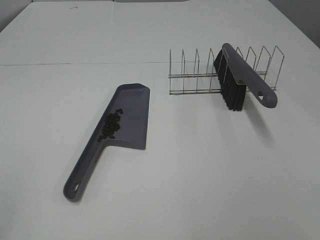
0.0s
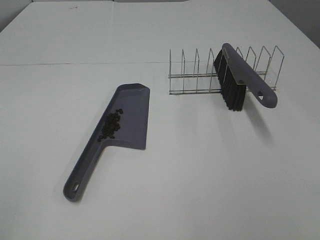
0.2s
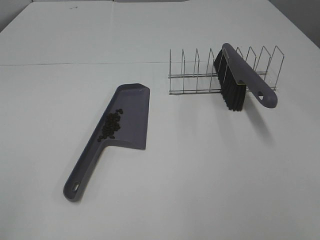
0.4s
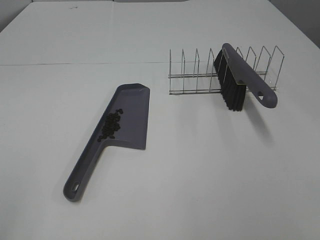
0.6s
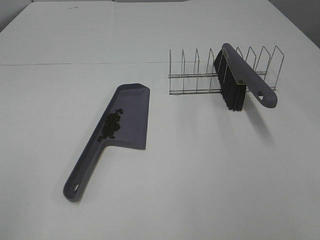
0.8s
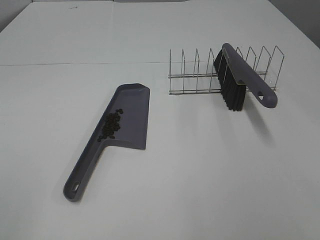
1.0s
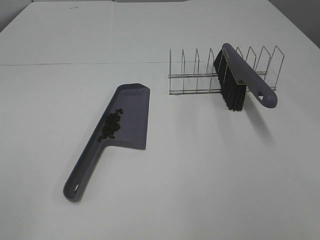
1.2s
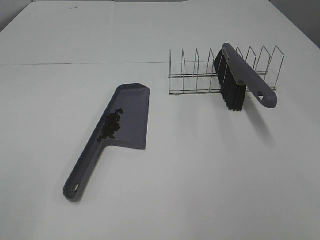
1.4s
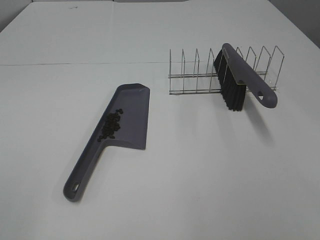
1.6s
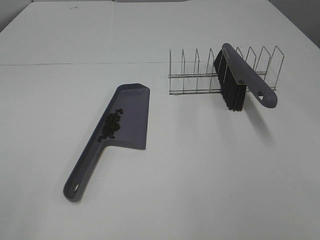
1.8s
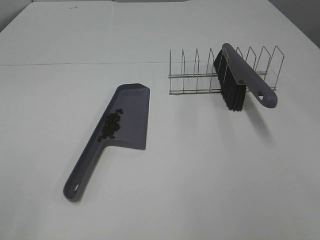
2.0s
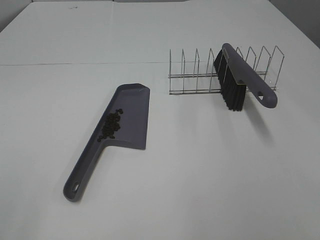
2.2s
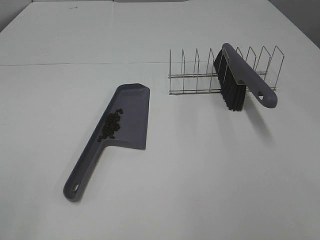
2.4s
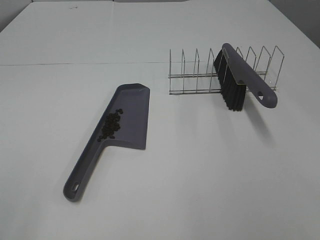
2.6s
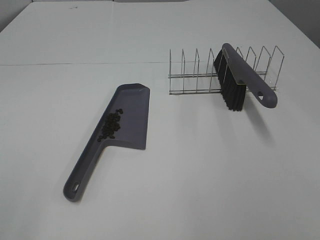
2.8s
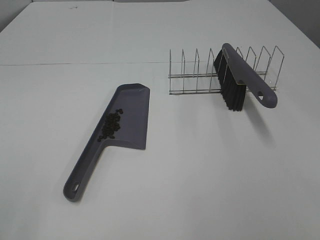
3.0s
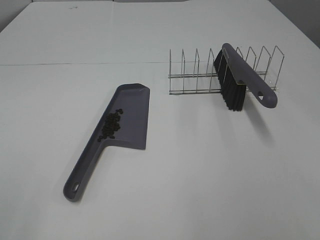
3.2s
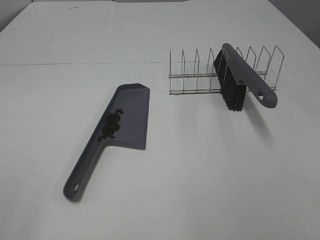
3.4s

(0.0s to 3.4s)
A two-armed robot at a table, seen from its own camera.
Task of the whole recording: Sweep Coffee Bean.
1.6s - 3.4s: Both grippers stay about where they are.

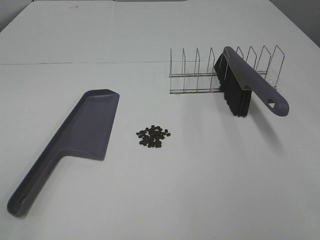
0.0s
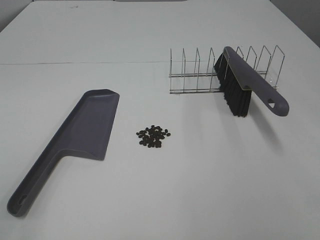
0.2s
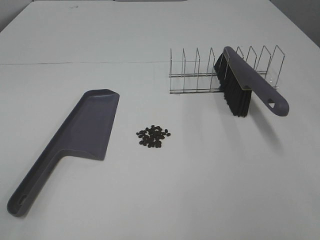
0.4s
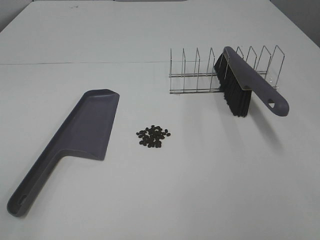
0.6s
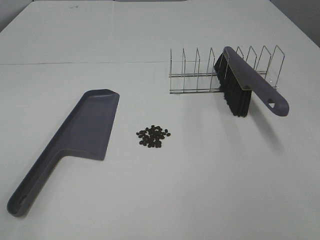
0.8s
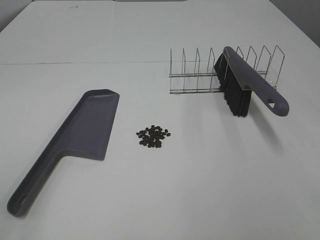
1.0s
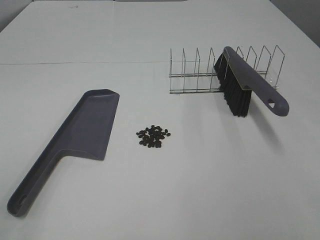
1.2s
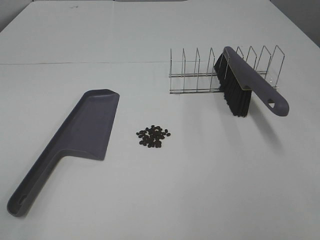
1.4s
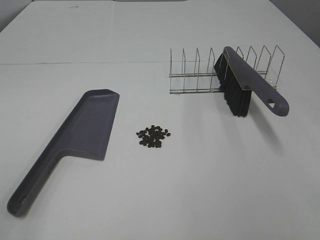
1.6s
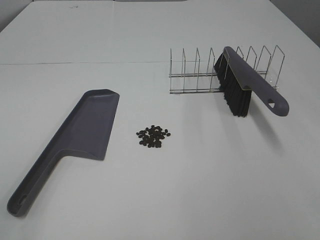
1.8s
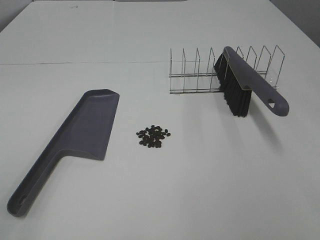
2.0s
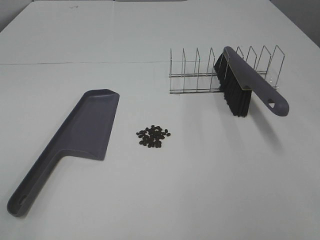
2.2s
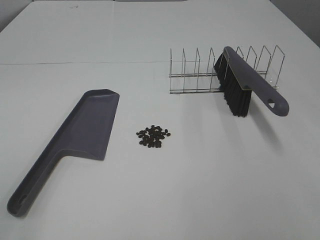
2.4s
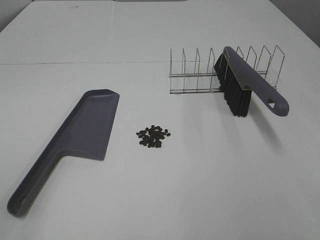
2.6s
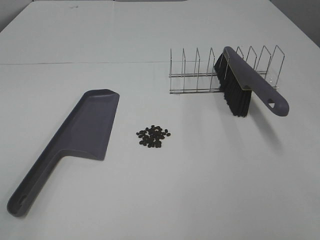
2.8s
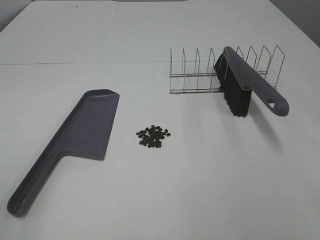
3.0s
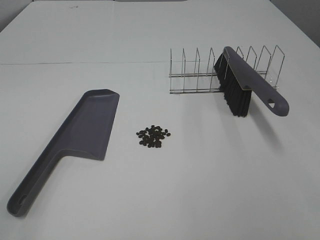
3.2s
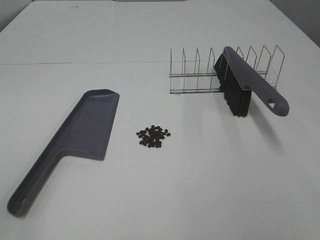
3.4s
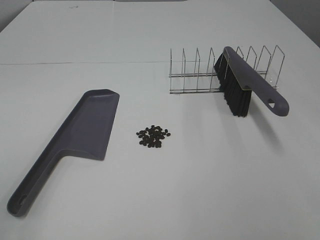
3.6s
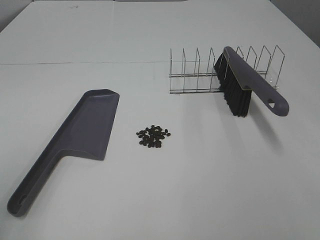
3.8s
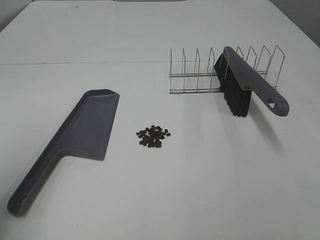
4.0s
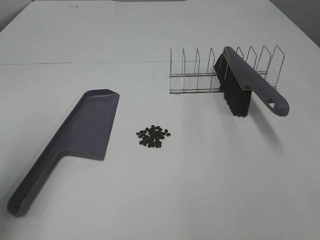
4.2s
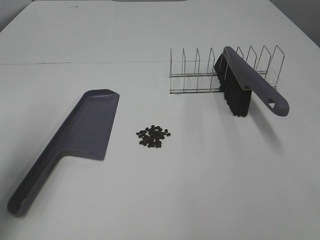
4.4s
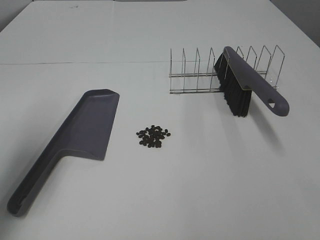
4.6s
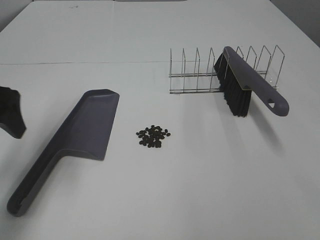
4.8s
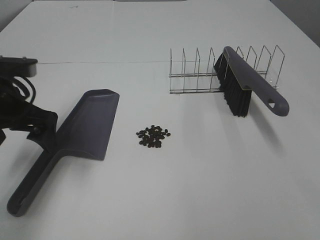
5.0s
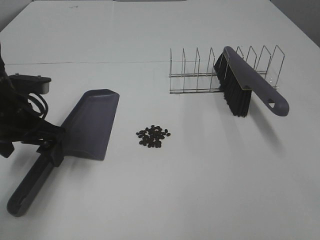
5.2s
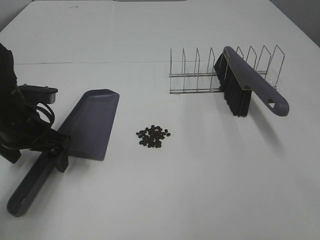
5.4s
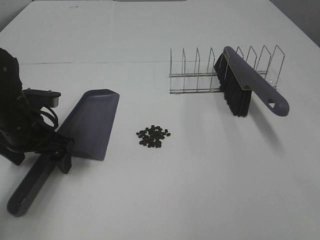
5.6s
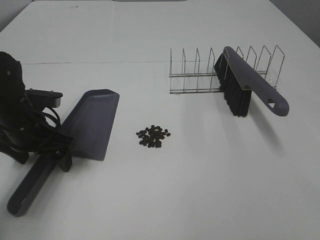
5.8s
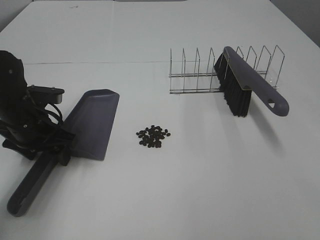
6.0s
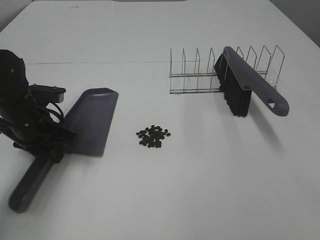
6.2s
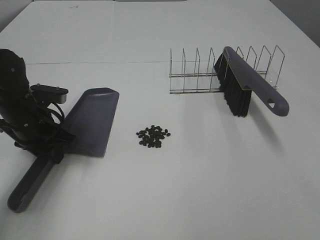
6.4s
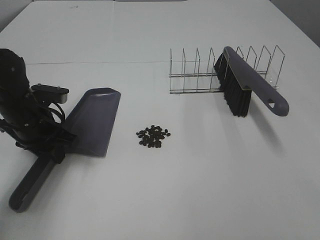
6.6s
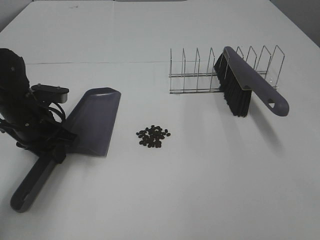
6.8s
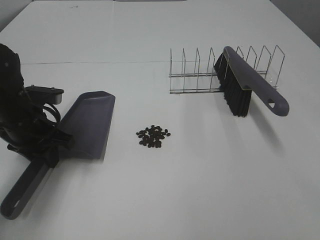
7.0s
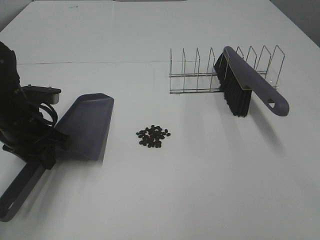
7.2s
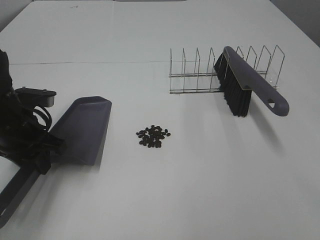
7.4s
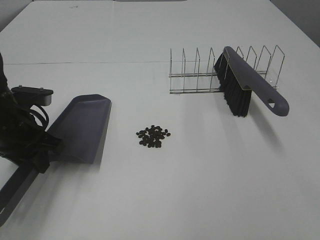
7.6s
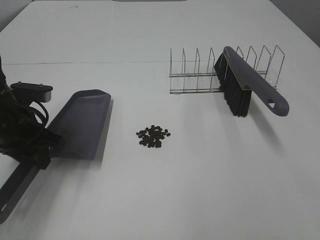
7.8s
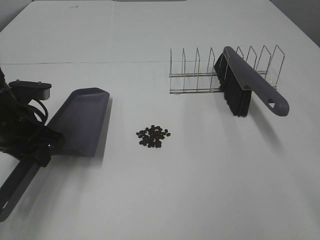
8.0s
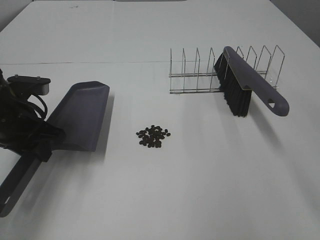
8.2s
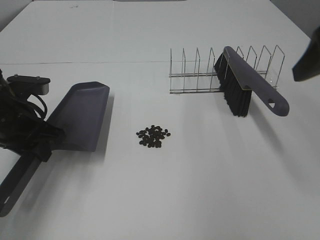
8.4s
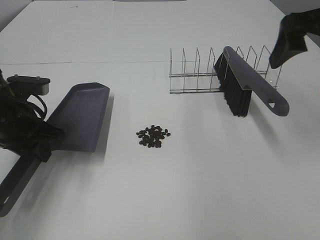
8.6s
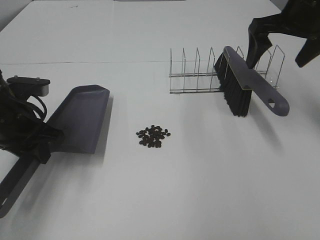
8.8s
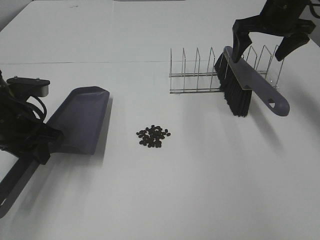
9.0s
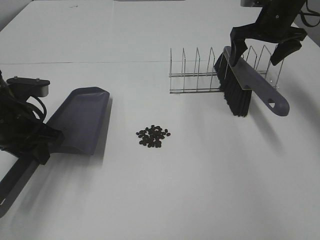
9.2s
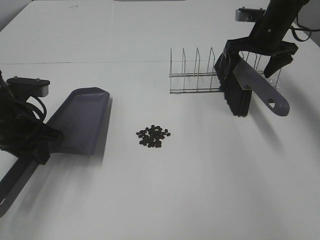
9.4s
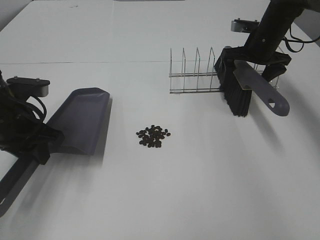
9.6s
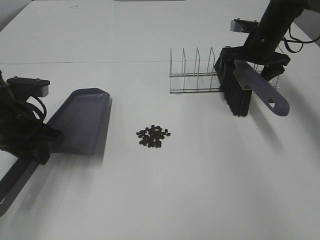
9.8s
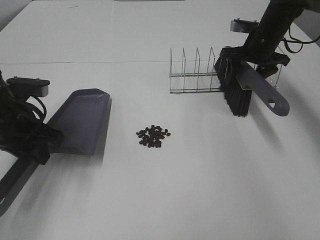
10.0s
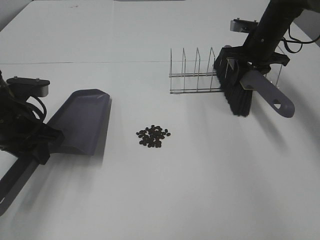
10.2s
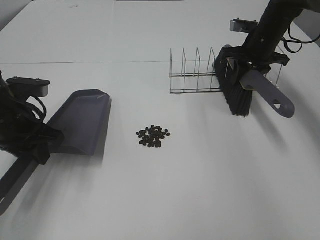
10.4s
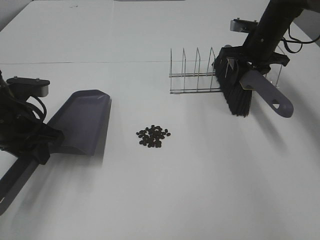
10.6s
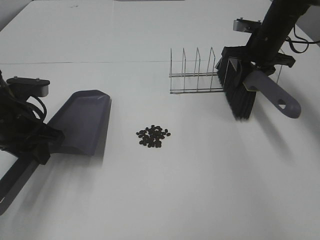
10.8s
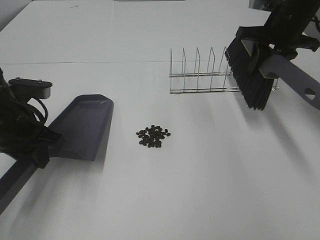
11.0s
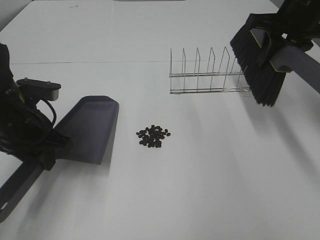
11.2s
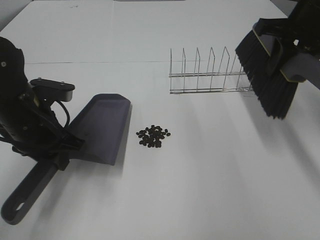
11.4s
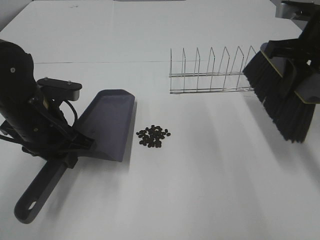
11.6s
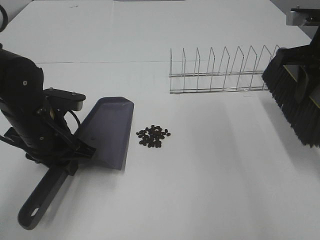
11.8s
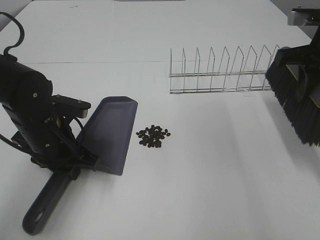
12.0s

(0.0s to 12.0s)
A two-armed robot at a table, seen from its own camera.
Task of the whole recording: Sweep Coffee Bean.
Step, 0.0s - 6.2s: Left hand: grab the dustpan.
Step, 7.8s - 10.2s: Right hand:grab the broom.
0.0s - 3.0s: Neither gripper changes place.
3.0s - 4.4s: The left gripper goes approximately 20 cm forward.
4.4s - 6.0s: The left gripper shifts approximately 25 cm downward, forward and to the right.
6.0s - 7.6s: The left gripper closes.
7.6s - 9.0s: The right gripper shifts some 50 cm forward.
9.0s - 10.4s: The right gripper is displaced downward by about 10 cm, and closes.
10.4s - 12.0s: The left gripper heads to the right, covering roughly 5 cm. Meanwhile the right gripper shifts roughly 20 cm backward and upward.

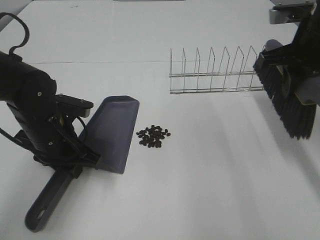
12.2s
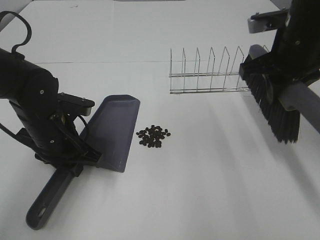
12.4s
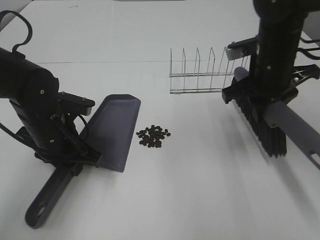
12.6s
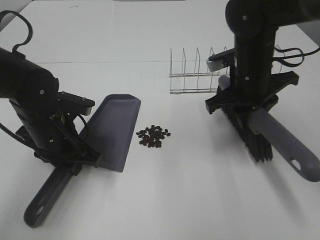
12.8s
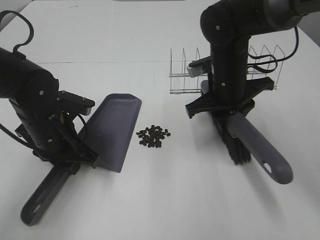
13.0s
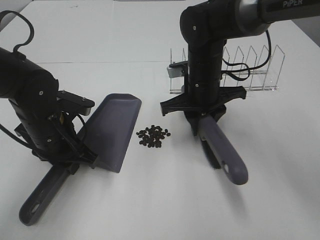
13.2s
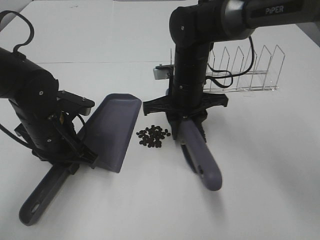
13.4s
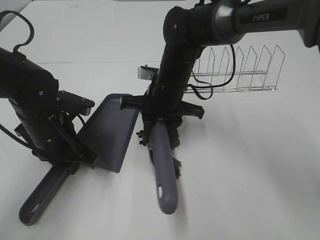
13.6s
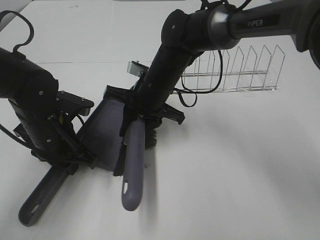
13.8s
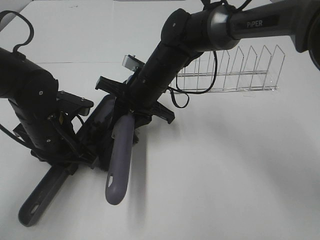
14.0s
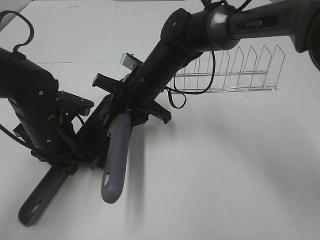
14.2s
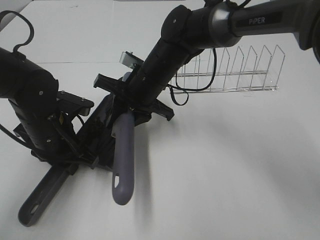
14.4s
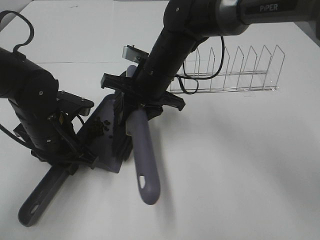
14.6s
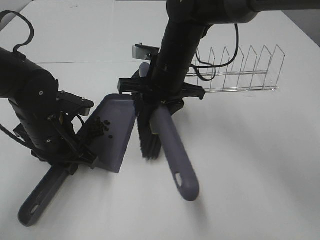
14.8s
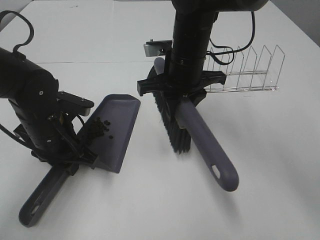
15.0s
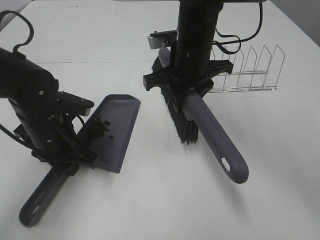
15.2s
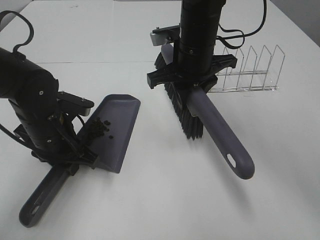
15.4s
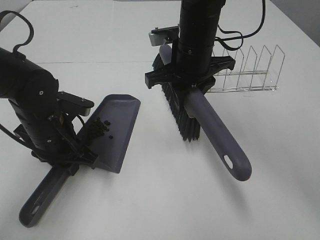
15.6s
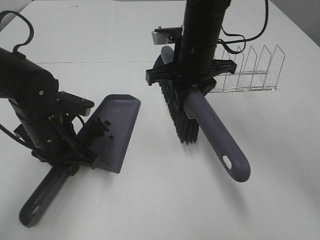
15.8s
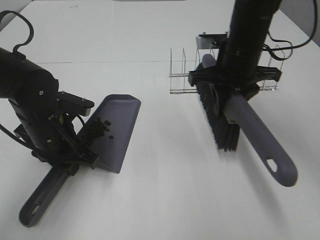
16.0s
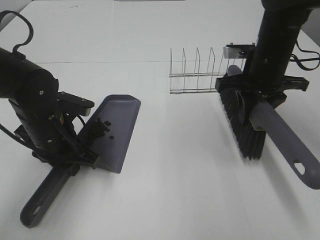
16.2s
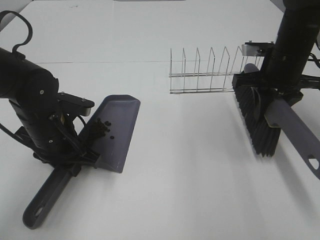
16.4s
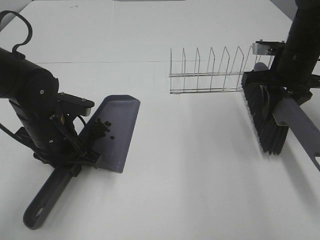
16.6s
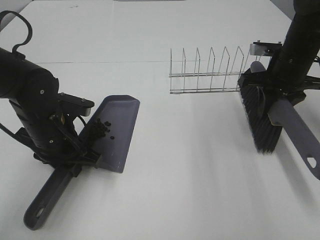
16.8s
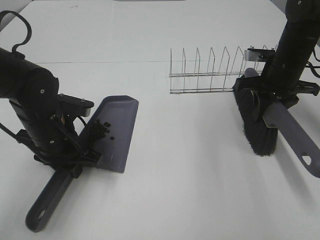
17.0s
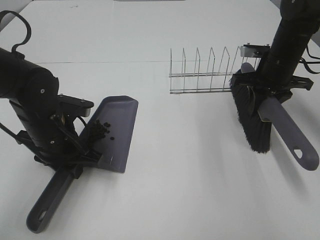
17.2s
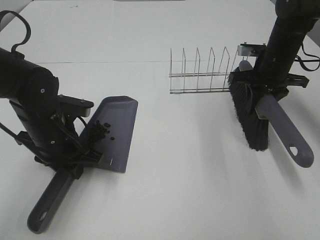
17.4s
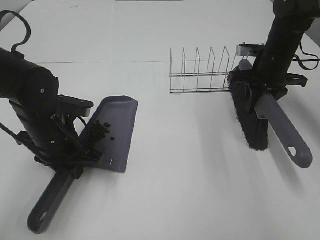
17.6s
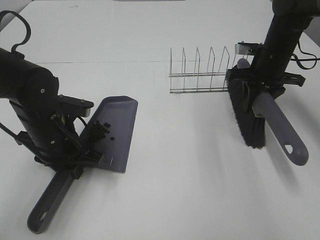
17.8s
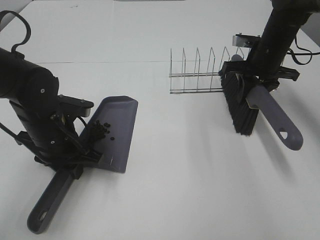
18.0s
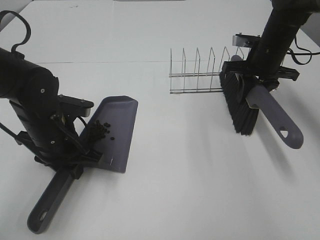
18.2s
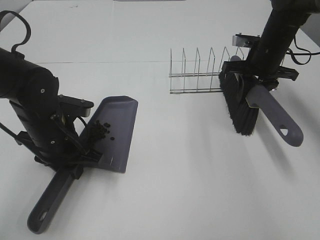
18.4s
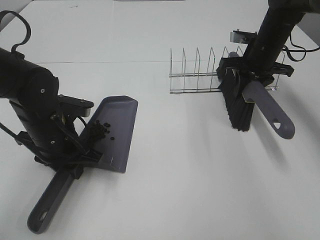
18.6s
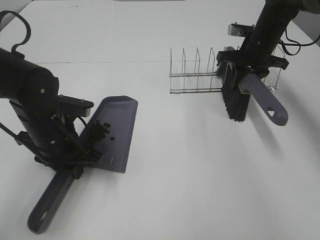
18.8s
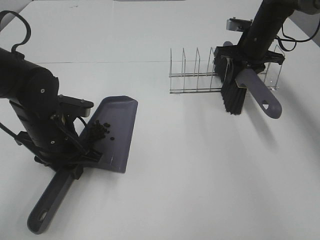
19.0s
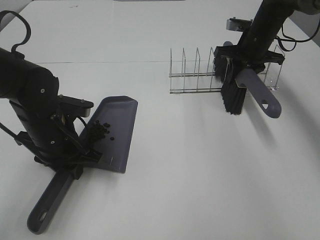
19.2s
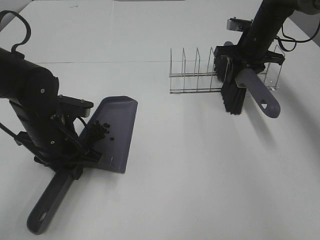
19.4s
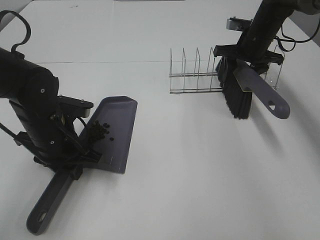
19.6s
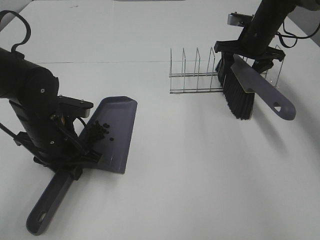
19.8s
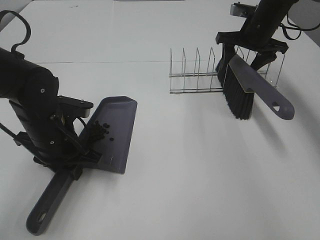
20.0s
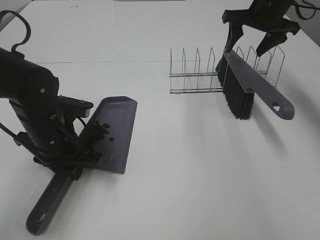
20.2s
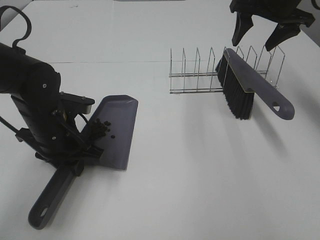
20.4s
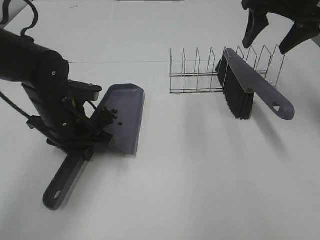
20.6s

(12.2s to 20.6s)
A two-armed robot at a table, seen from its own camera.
Task of the whole recording: Sweep Coffee Bean.
Step, 12.2s - 14.6s: Right hand:sweep the coffee beans into the dustpan.
Step, 14.8s - 19.6s: Right hand:place the broom on the rack.
12.2s - 13.6s: The right gripper travels to the left and downward by some 25 cm.
13.6s - 15.0s: The right gripper heads upward, covering approximately 5 cm.
15.0s - 16.4s: The right gripper travels to the right by roughly 15 cm.
16.4s - 17.8s: The right gripper goes roughly 5 cm forward.
17.8s - 19.2s: The right gripper moves forward, some 5 cm.
19.2s - 20.6s: The right gripper goes approximately 20 cm upward and backward, and opens up.
